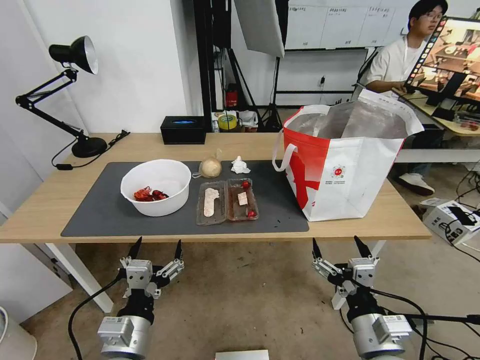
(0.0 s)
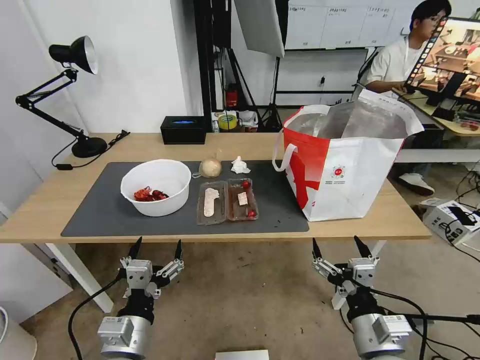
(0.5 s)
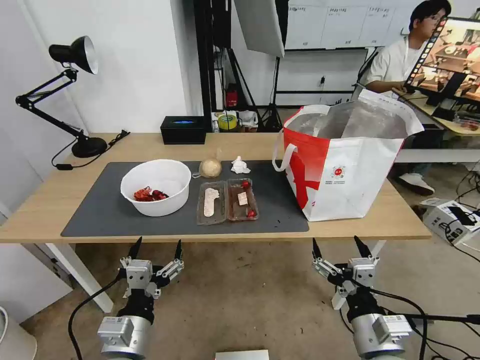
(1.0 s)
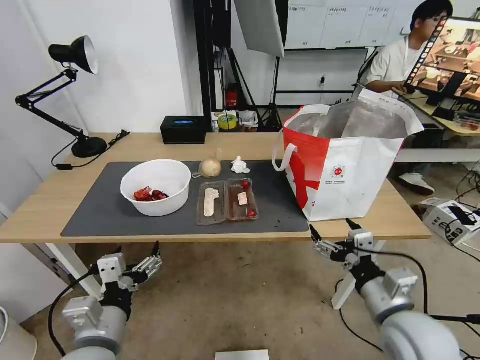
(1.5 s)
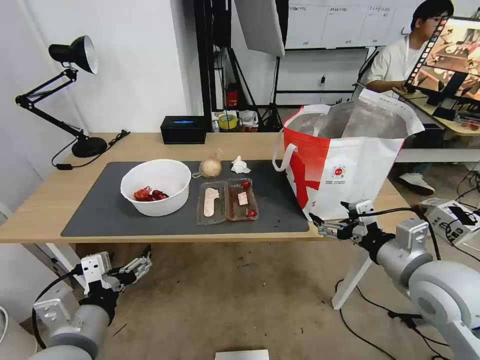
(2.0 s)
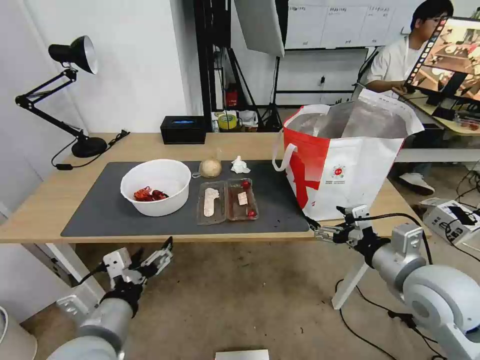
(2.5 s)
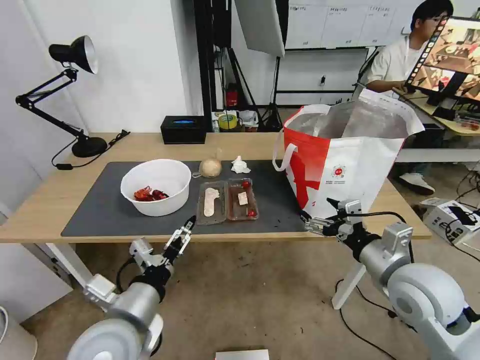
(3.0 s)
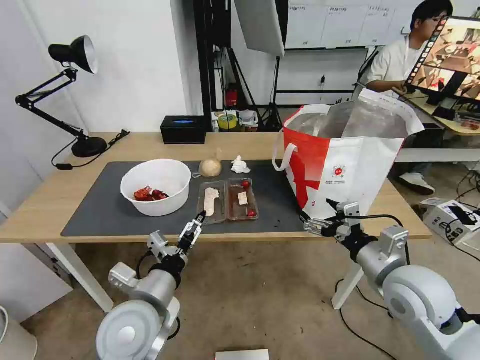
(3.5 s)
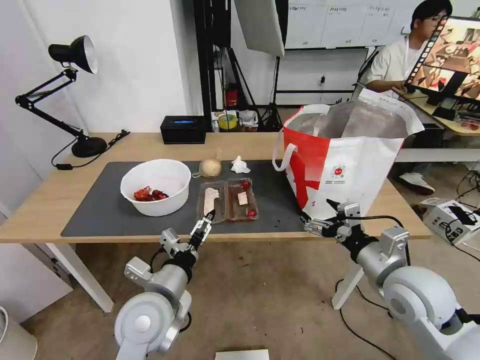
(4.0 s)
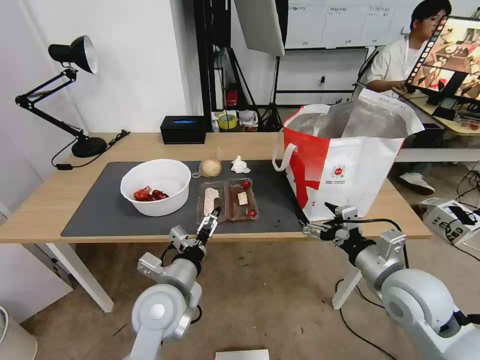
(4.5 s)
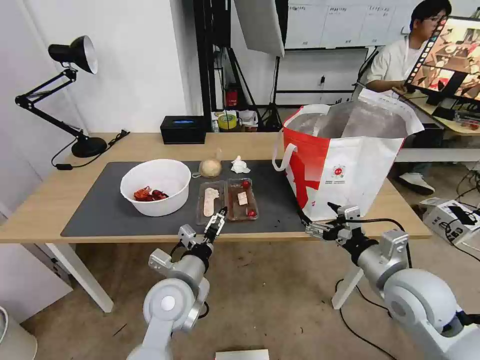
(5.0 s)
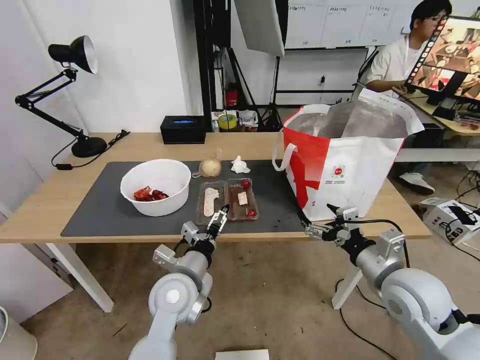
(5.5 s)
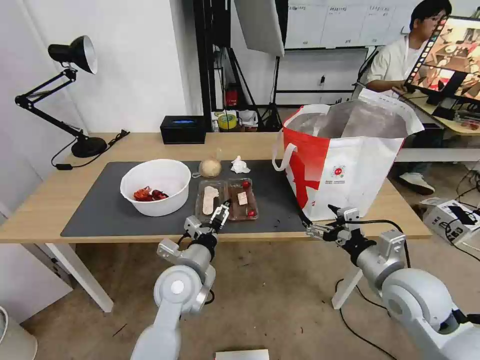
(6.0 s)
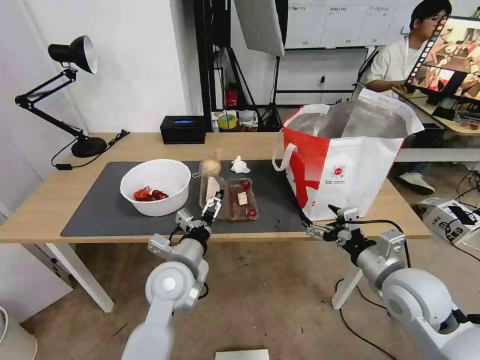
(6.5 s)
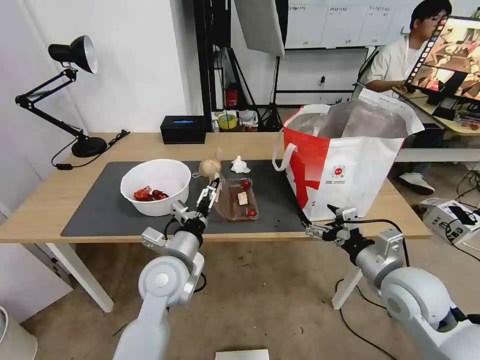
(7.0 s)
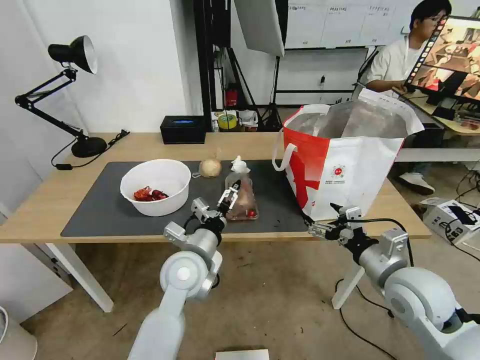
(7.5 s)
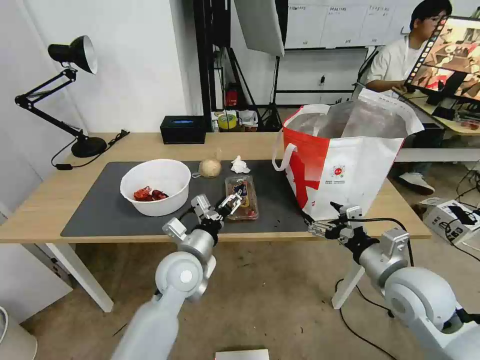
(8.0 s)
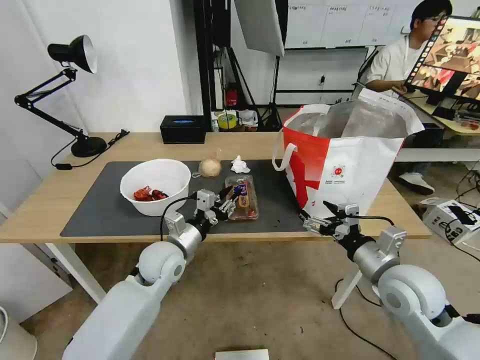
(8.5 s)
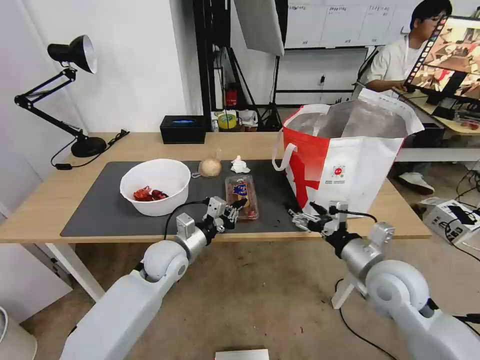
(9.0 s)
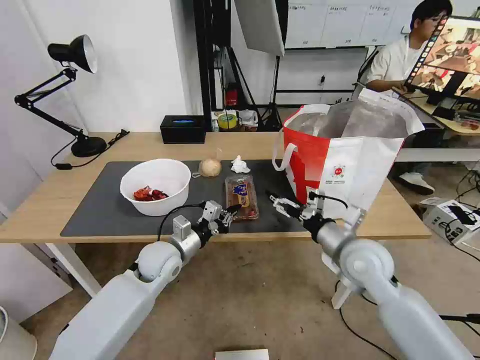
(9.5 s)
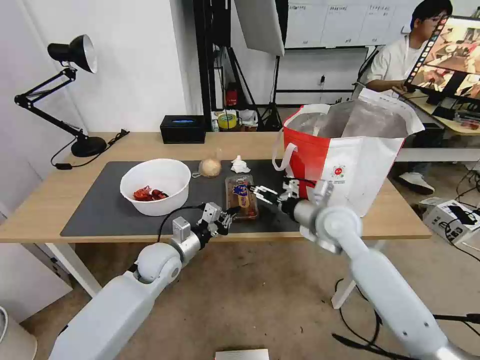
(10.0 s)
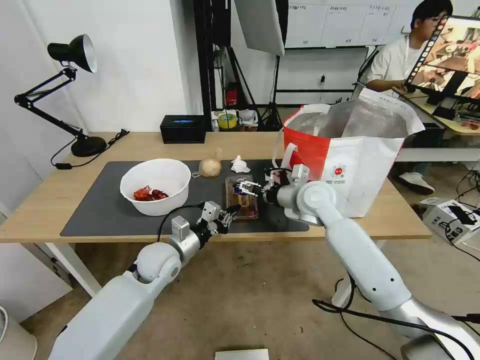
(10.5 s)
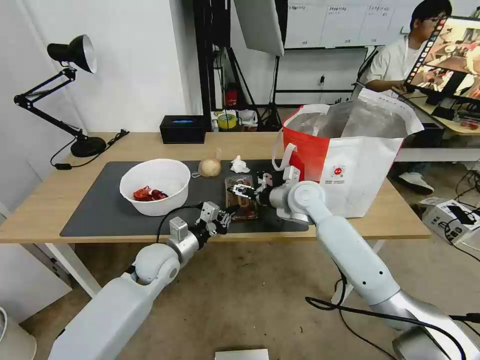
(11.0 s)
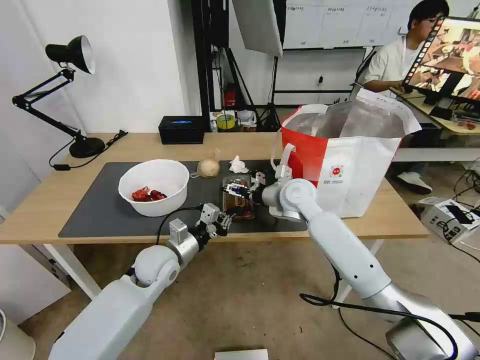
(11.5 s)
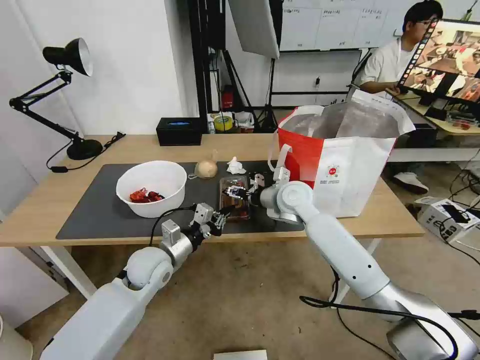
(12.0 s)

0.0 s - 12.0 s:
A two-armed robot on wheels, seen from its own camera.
Task of the whole recording: Pick up the trash from the table and place it into the takeout bag.
2.0 s - 4.0 s: The left gripper moves forward and to the right, roughly 15 cm.
4.0 s - 6.0 s: The left gripper heads forward, covering some 5 cm.
8.0 s - 10.0 s: The left gripper heads to the left and forward, covering some 10 cm, and closes its fingers. Meanwhile the right gripper heads forward and to the left, covering roughly 20 cm.
10.0 s - 12.0 s: The right gripper travels forward and to the left by approximately 10 cm.

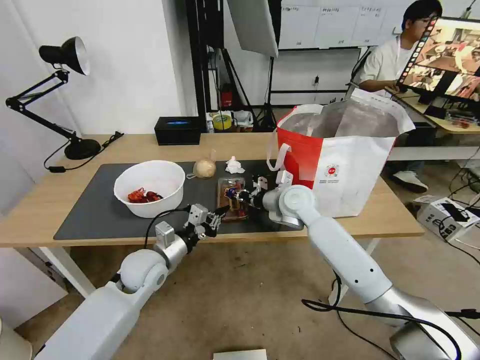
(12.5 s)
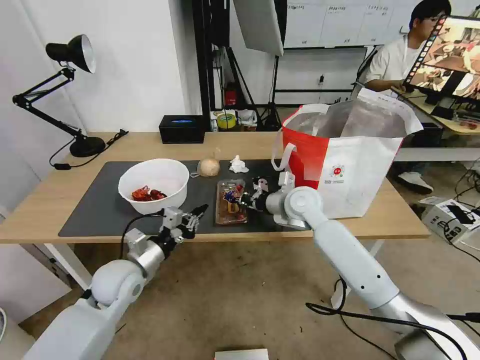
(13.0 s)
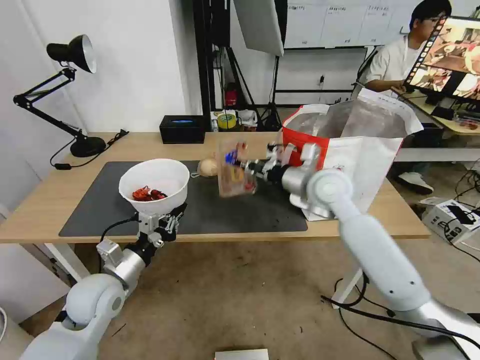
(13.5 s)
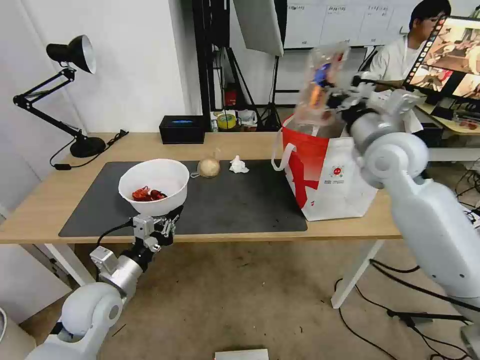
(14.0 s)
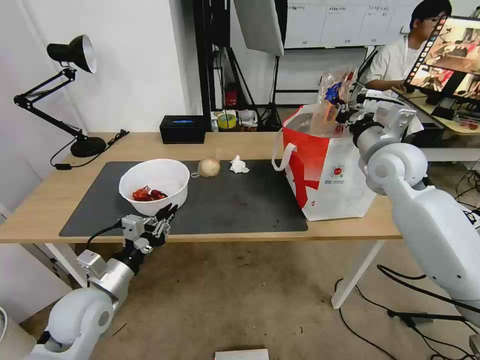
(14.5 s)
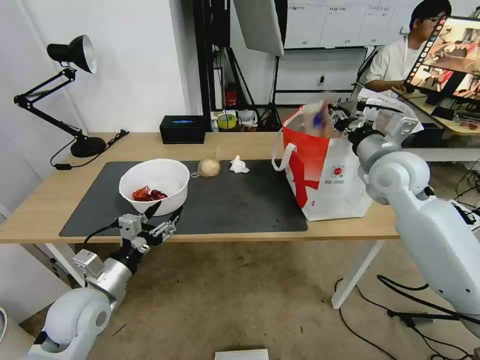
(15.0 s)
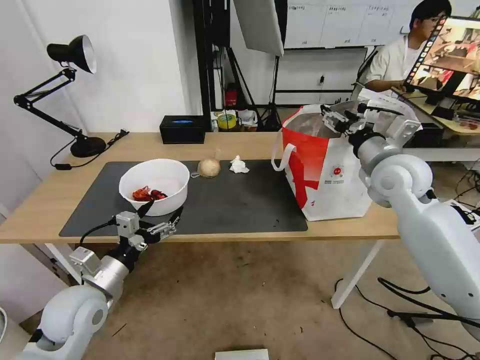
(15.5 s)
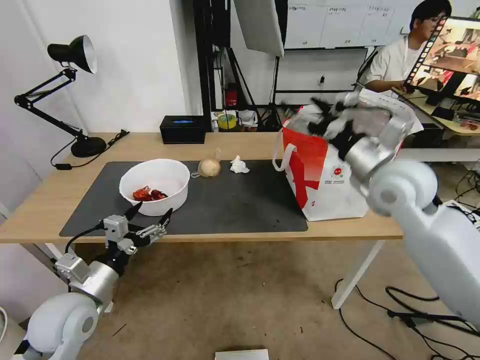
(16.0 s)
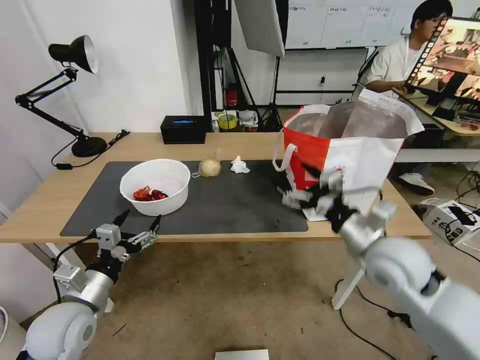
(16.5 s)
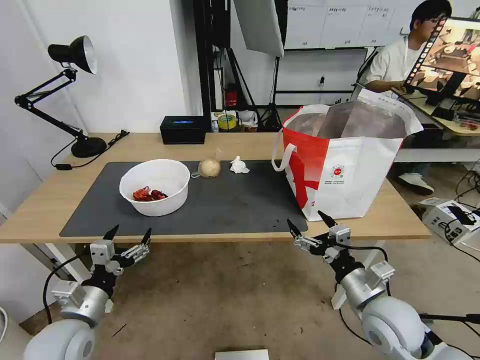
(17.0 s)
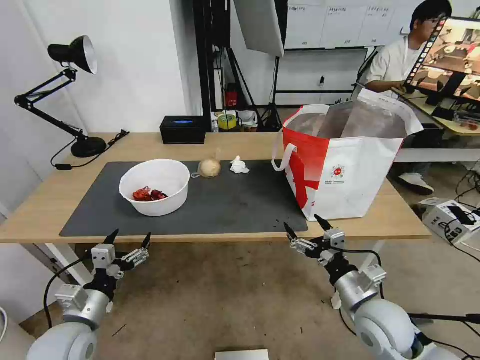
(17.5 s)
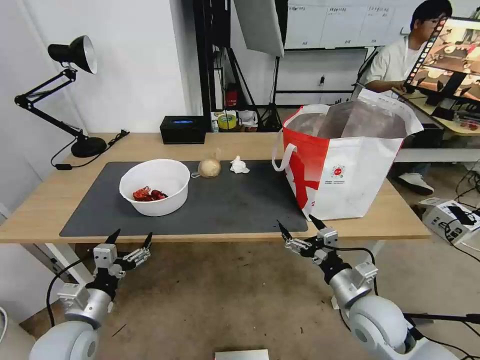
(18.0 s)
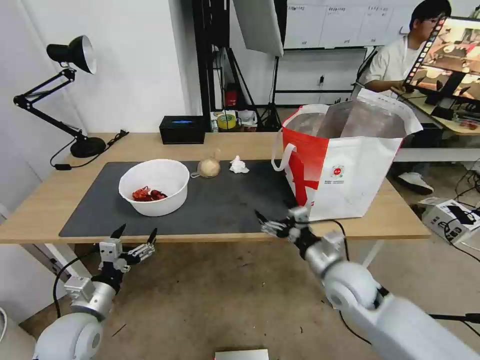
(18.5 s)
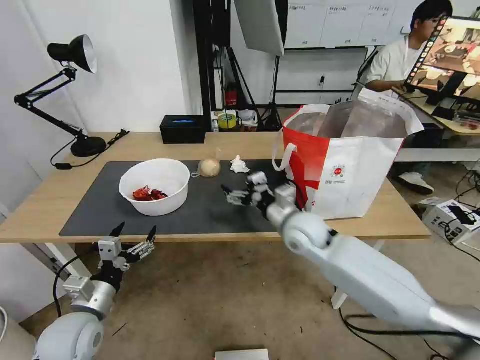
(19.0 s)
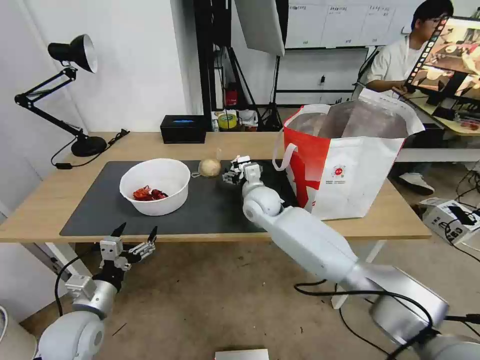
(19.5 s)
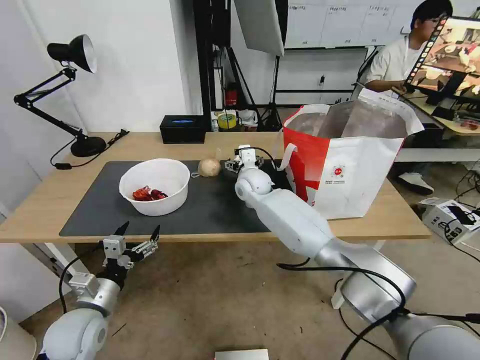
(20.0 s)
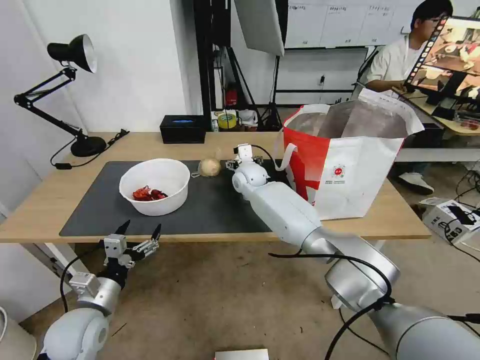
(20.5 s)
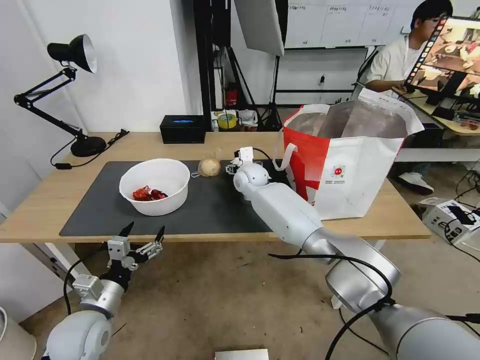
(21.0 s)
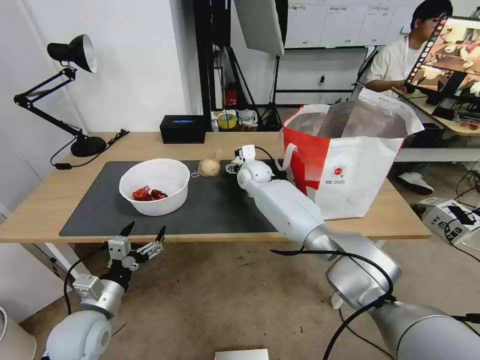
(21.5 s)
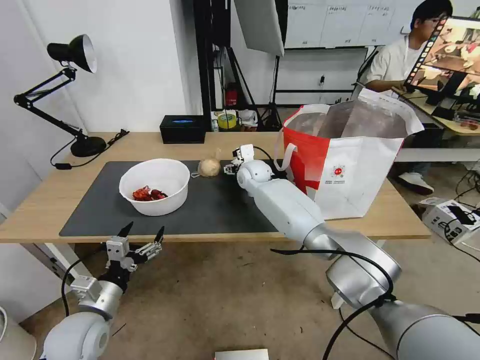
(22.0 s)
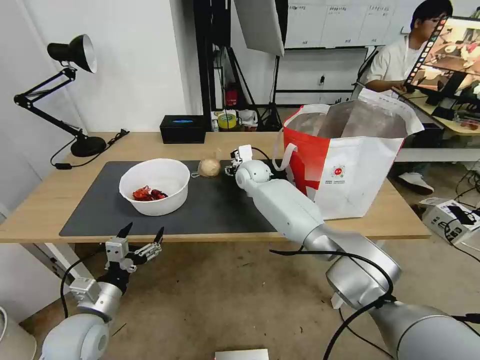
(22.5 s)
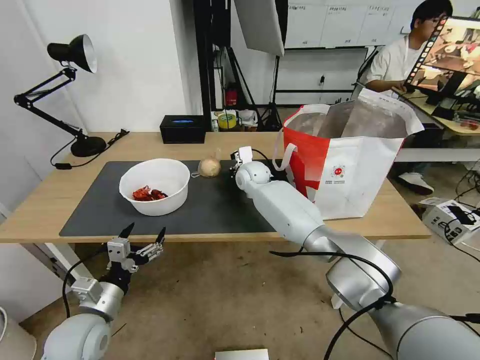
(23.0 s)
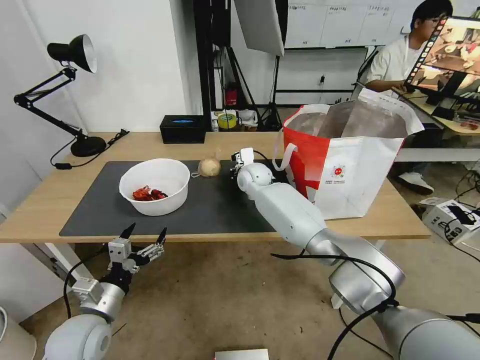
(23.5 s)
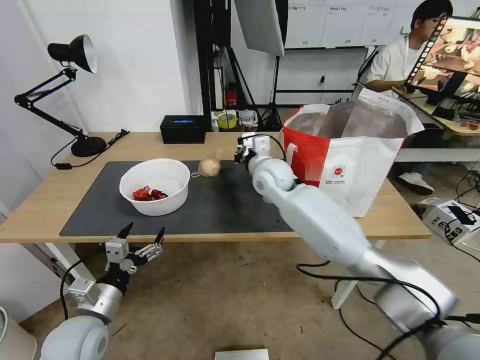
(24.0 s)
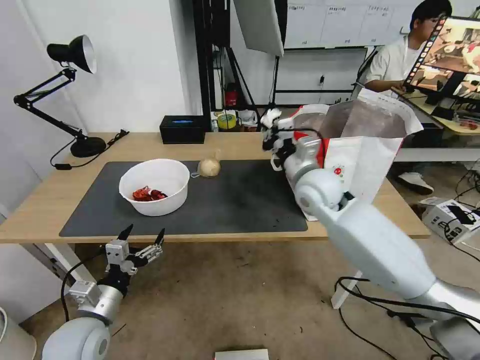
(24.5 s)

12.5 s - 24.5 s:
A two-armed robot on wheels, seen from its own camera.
Task of the whole recording: Pick up the trash from the table and place it into the takeout bag.
12.5 s - 14.5 s: The left gripper heads backward and to the left, covering some 15 cm. The right gripper is displaced to the right and upward by approximately 20 cm.
14.5 s - 16.5 s: The left gripper opens its fingers. Meanwhile the right gripper is displaced backward and downward by approximately 20 cm, and opens its fingers.
16.5 s - 18.5 s: The right gripper travels downward by roughly 10 cm.
18.5 s - 20.5 s: The right gripper moves forward and to the left, some 35 cm.
20.5 s - 22.5 s: The grippers move only a little.
22.5 s - 24.5 s: The right gripper goes some 20 cm backward, to the right and upward, and closes.

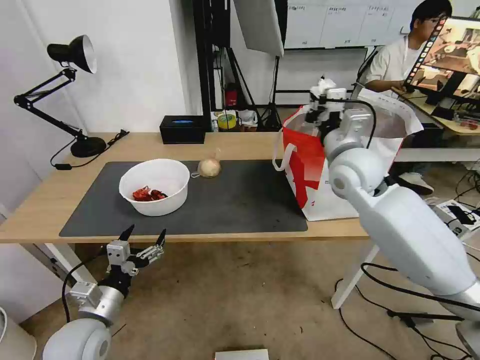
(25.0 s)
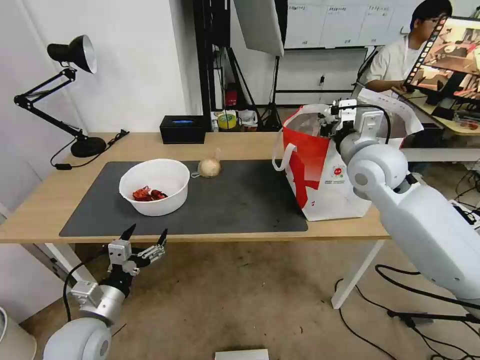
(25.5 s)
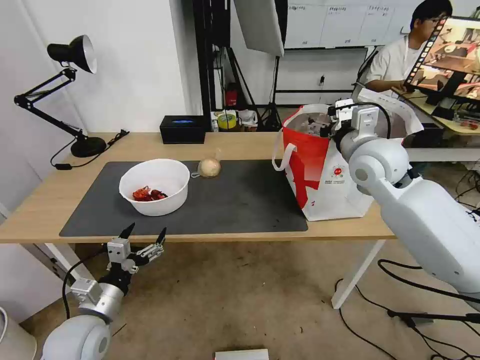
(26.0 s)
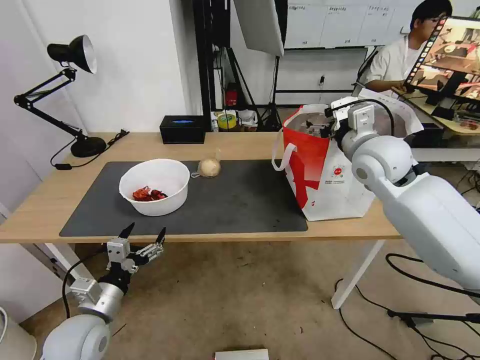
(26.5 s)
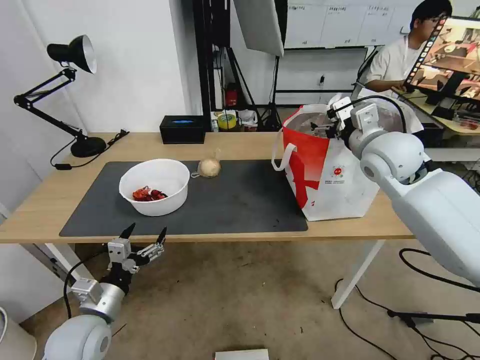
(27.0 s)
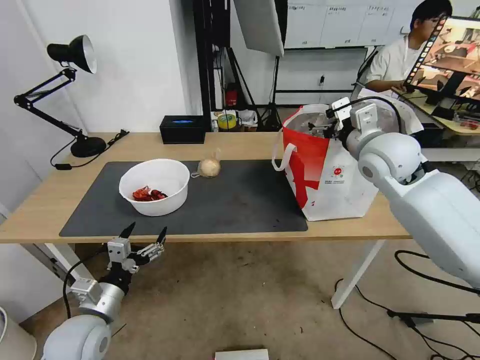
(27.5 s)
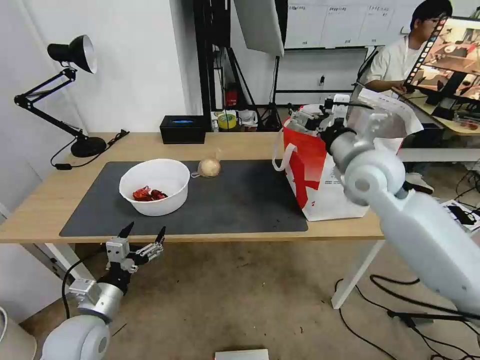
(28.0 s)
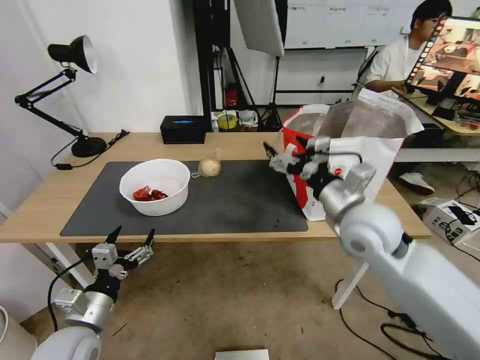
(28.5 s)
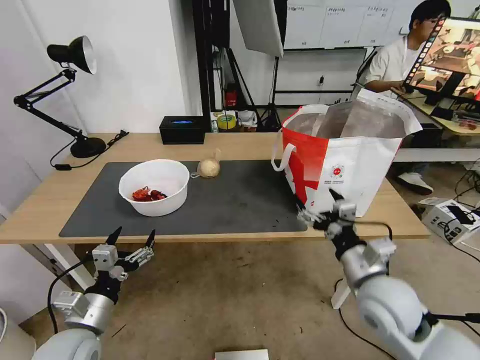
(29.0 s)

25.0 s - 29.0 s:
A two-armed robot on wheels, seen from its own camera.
Task of the whole recording: Pick up the trash from the table and place it into the takeout bag.
25.0 s - 27.0 s: The right gripper heads to the right, covering about 5 cm, and opens.
27.0 s - 29.0 s: The right gripper shifts roughly 25 cm backward and downward.
